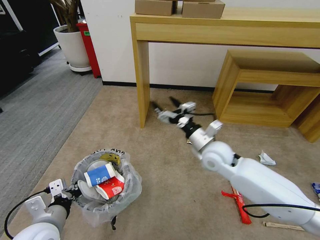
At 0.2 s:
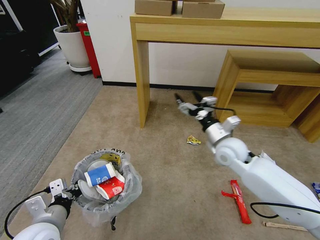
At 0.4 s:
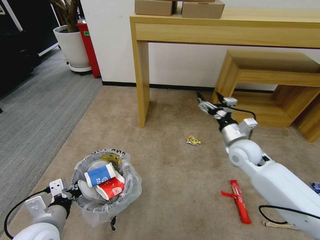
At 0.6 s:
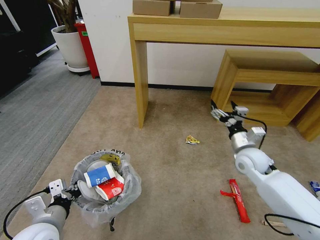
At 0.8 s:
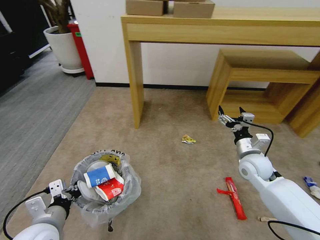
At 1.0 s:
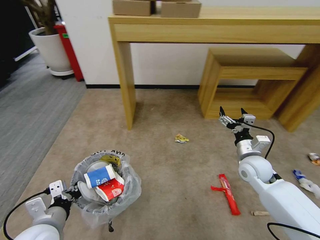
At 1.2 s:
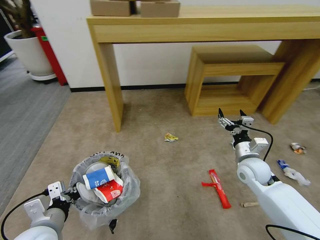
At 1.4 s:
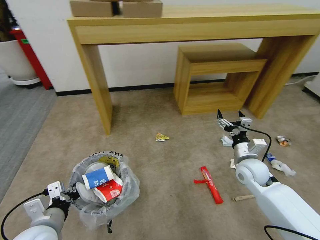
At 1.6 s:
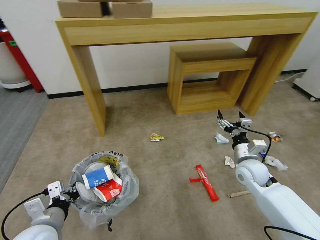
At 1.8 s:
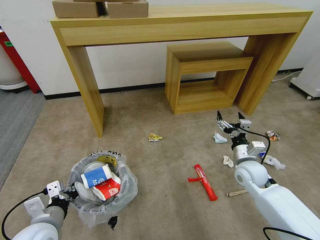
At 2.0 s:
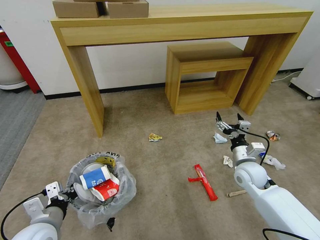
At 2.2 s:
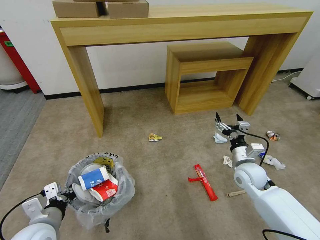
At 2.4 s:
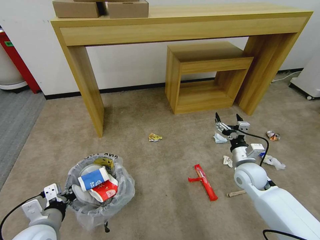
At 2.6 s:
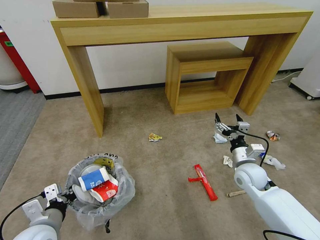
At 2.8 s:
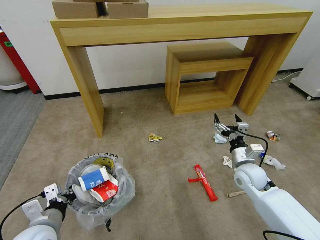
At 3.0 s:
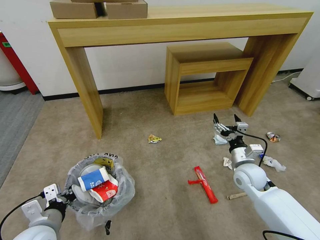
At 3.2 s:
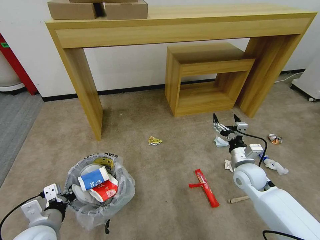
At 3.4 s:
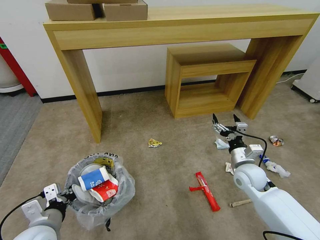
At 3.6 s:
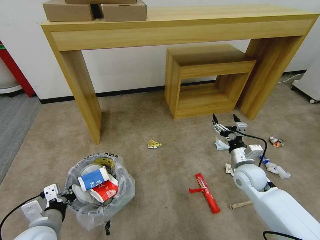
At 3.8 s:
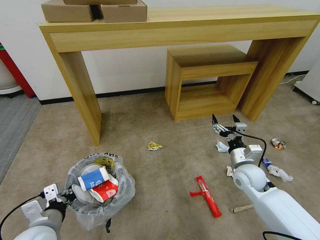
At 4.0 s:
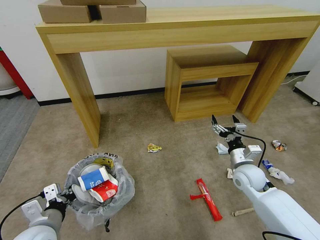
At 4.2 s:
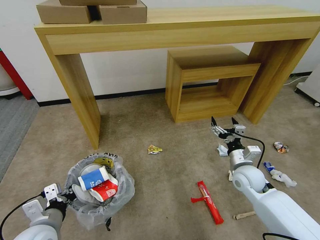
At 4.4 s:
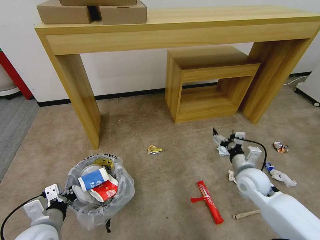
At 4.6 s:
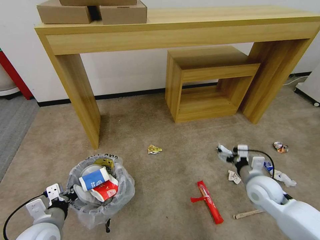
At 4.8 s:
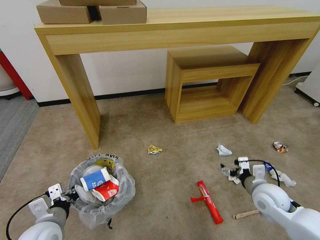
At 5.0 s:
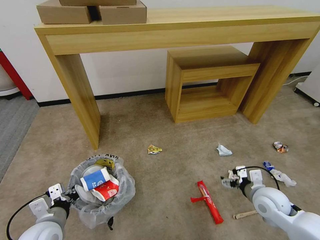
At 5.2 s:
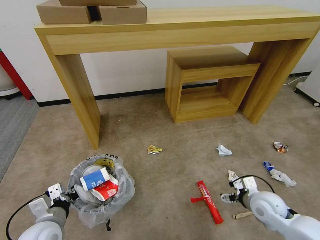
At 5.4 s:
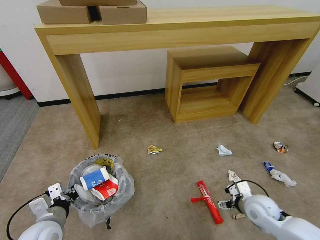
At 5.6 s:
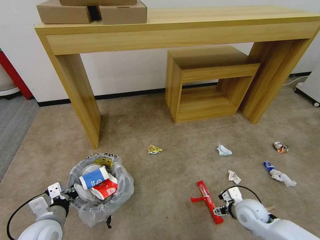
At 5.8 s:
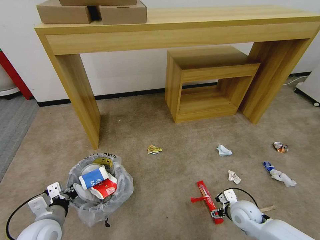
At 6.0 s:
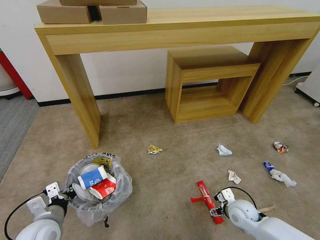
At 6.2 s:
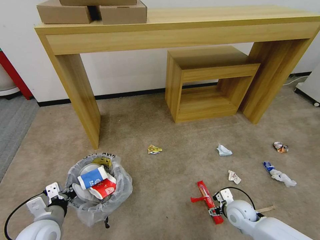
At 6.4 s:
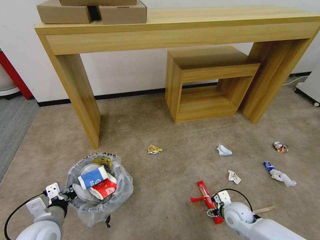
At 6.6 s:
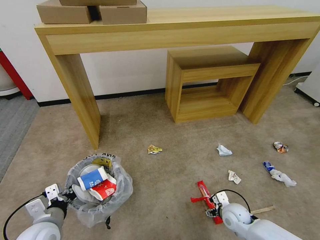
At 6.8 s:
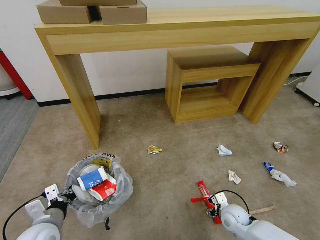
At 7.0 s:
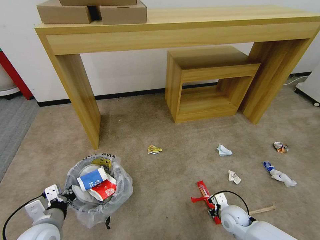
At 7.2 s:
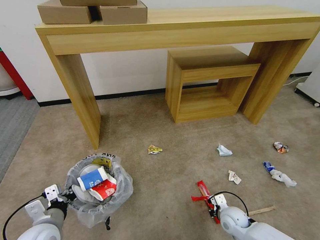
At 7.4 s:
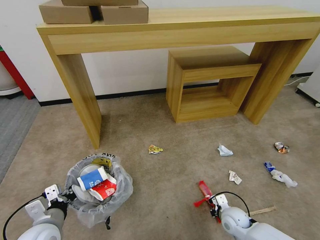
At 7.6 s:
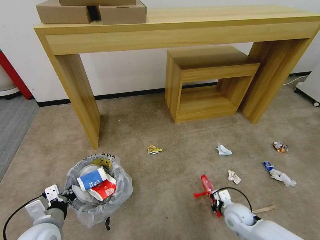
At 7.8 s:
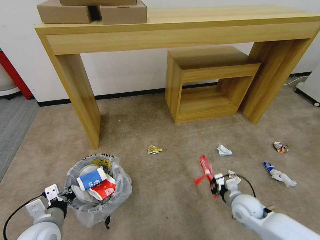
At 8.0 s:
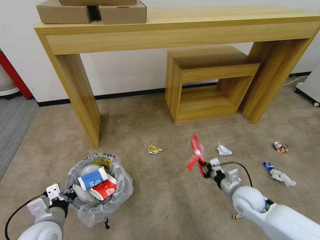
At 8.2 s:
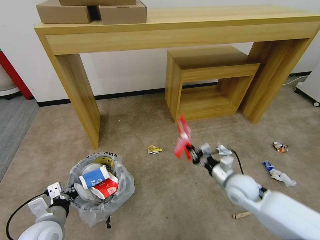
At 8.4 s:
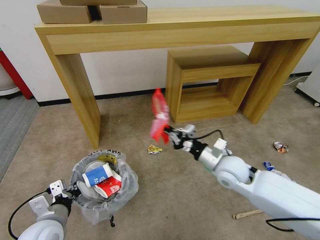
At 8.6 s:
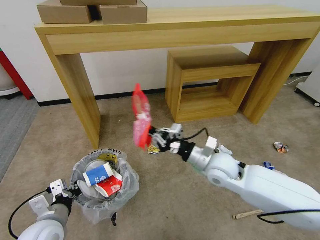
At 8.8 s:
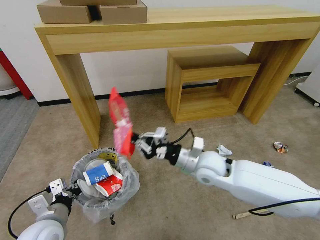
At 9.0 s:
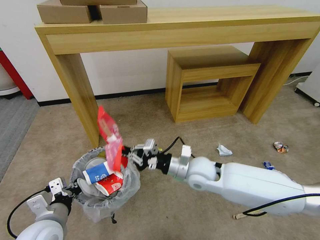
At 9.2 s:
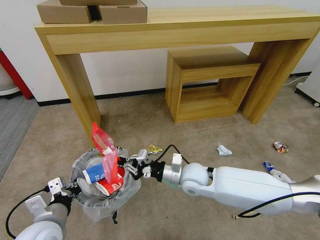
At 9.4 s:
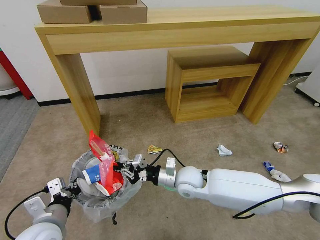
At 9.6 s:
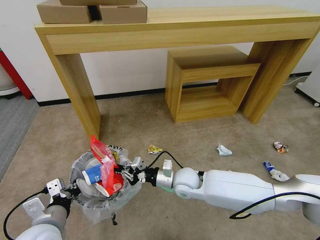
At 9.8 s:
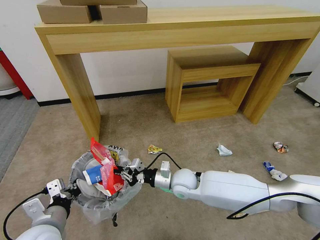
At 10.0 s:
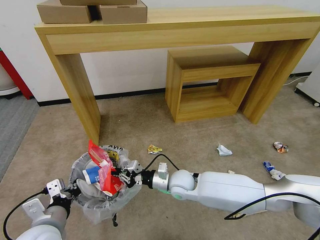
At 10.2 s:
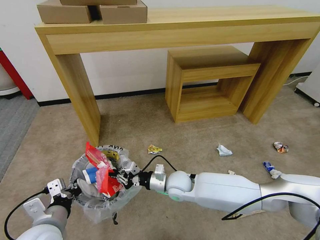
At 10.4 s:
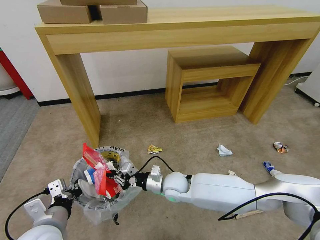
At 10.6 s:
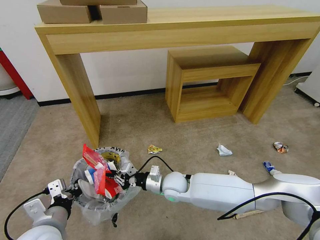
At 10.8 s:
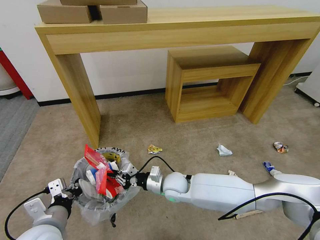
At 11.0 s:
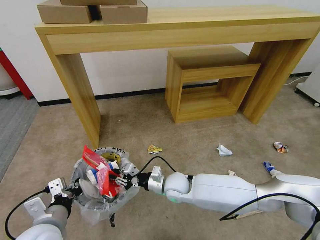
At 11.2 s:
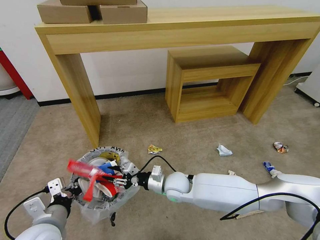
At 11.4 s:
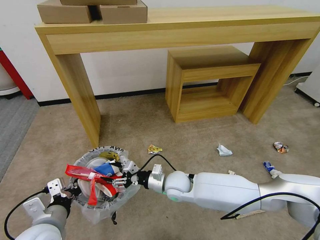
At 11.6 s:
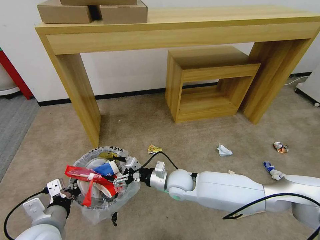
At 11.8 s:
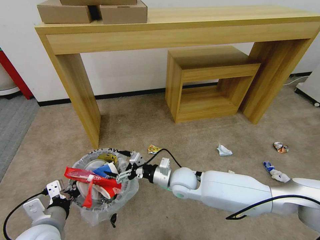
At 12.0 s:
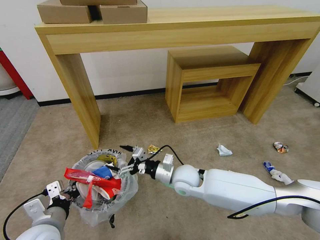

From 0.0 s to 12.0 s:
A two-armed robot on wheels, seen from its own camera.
Task of the whole recording: Pick up the trash bin and place the garbage on the floor into it.
From 0.0 s to 1.6 s: The right gripper shifts some 15 cm to the right and downward.
From 1.6 s to 3.0 s: There are only small adjustments of the grippers.
From 4.4 s to 6.0 s: The right gripper moves downward and backward, roughly 15 cm.
From 6.0 s to 7.6 s: The right gripper closes up.
From 7.6 s to 9.0 s: The right gripper is displaced upward and to the left by about 25 cm.
From 9.0 s to 10.4 s: The right gripper shifts about 15 cm downward and to the left.
From 10.4 s to 12.0 s: The right gripper ends up approximately 5 cm from where it was, and opens its fingers.

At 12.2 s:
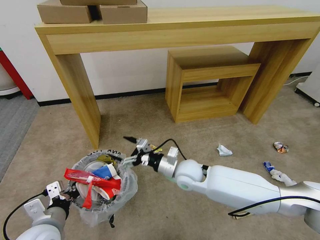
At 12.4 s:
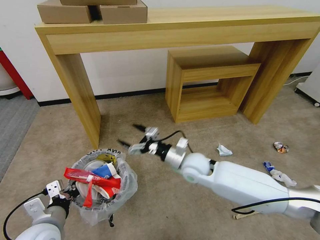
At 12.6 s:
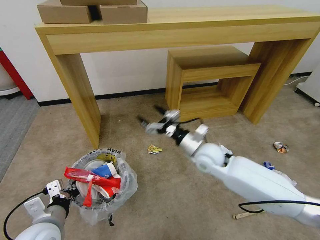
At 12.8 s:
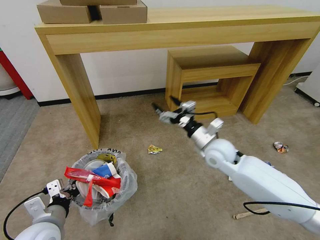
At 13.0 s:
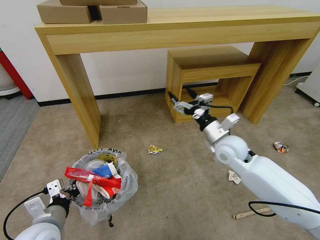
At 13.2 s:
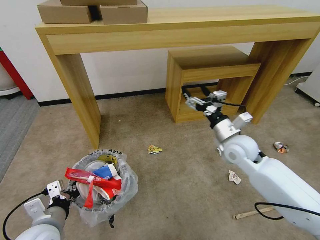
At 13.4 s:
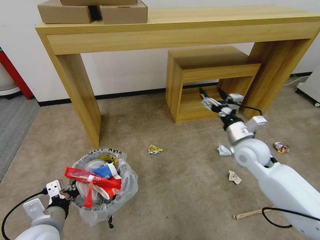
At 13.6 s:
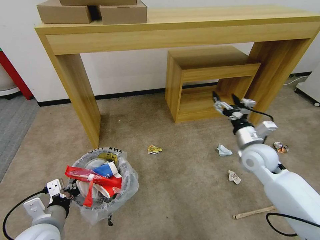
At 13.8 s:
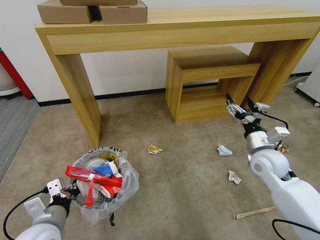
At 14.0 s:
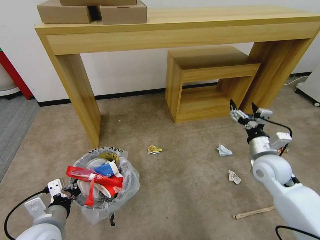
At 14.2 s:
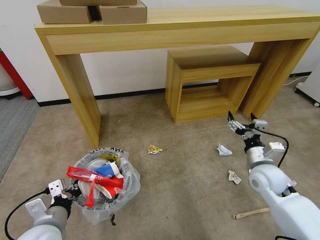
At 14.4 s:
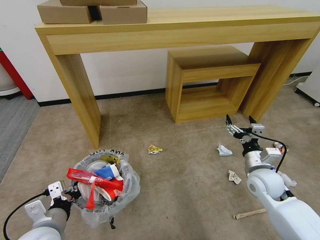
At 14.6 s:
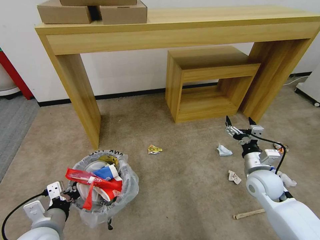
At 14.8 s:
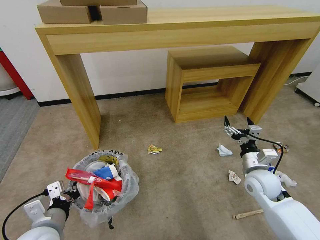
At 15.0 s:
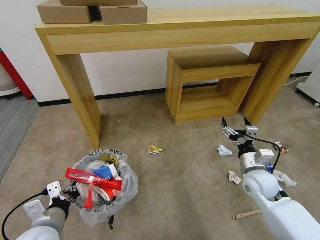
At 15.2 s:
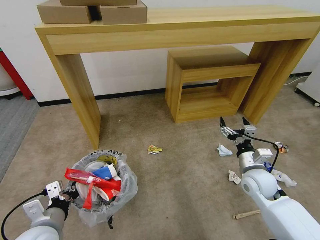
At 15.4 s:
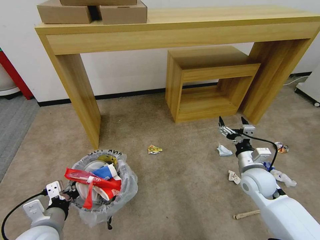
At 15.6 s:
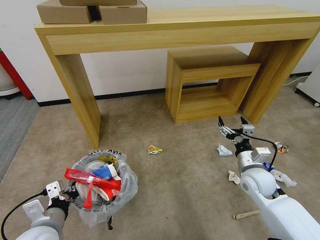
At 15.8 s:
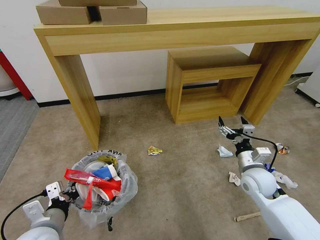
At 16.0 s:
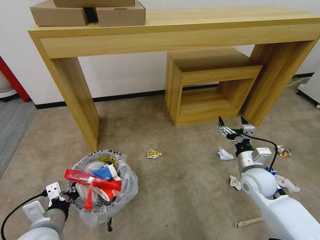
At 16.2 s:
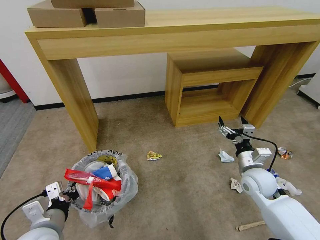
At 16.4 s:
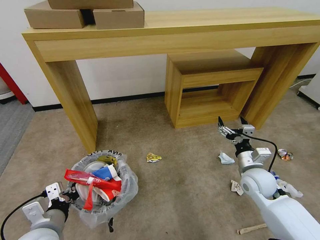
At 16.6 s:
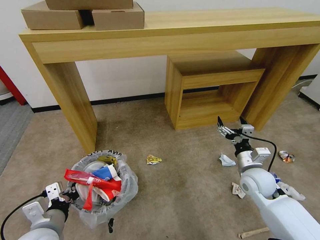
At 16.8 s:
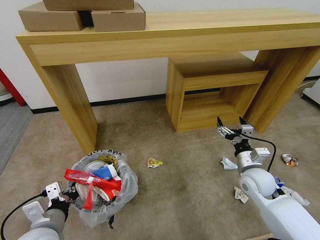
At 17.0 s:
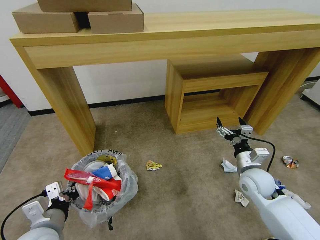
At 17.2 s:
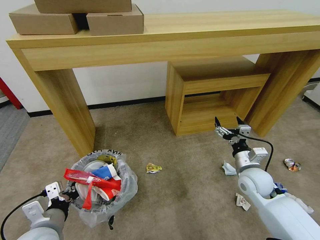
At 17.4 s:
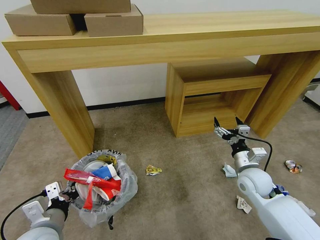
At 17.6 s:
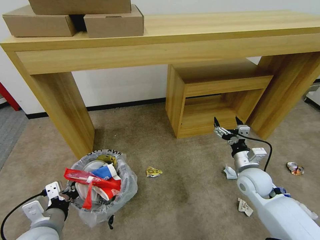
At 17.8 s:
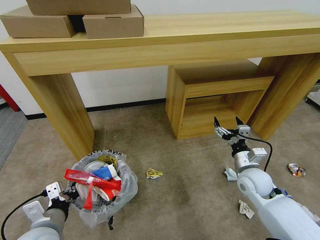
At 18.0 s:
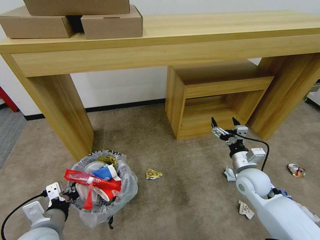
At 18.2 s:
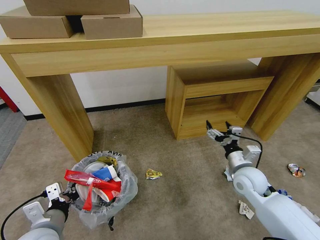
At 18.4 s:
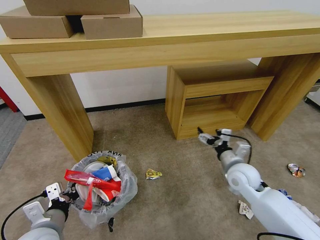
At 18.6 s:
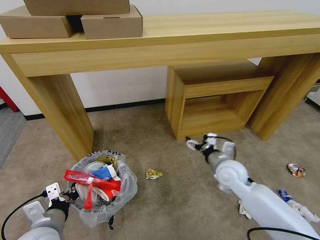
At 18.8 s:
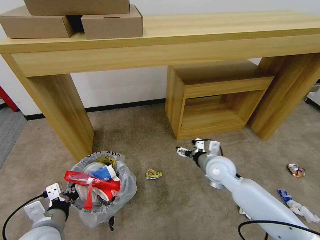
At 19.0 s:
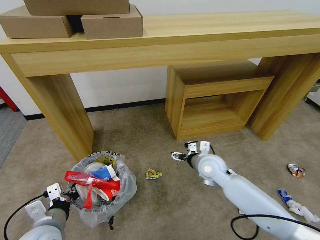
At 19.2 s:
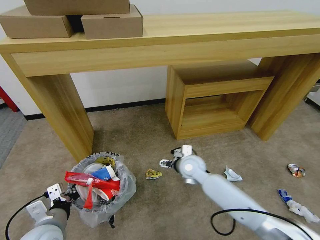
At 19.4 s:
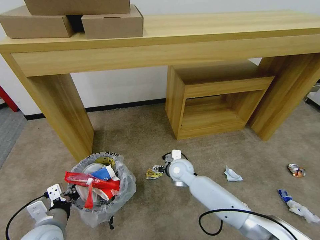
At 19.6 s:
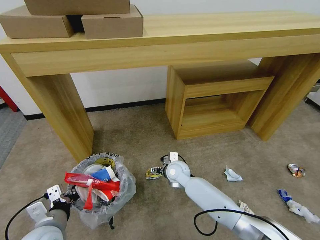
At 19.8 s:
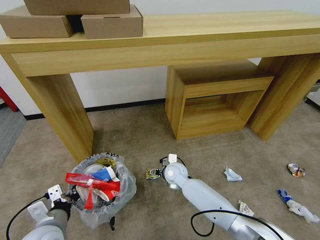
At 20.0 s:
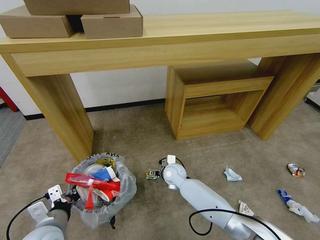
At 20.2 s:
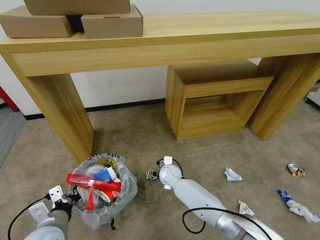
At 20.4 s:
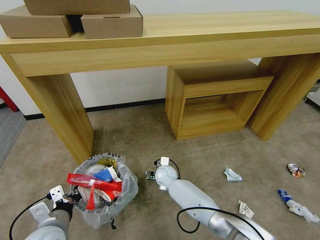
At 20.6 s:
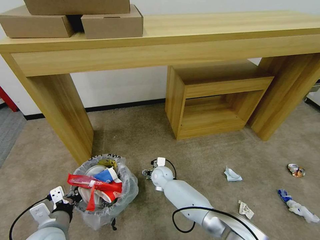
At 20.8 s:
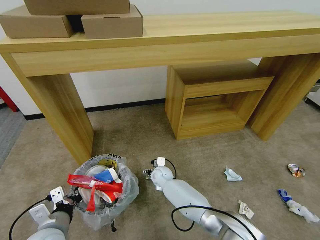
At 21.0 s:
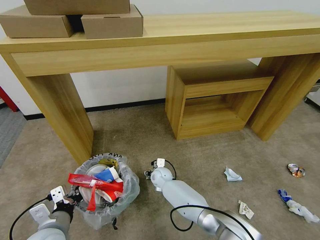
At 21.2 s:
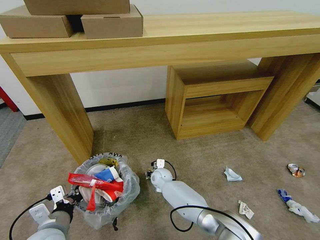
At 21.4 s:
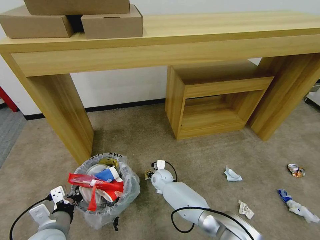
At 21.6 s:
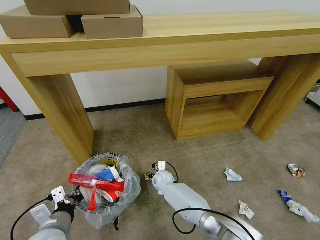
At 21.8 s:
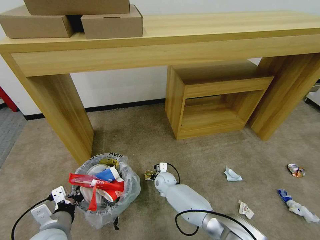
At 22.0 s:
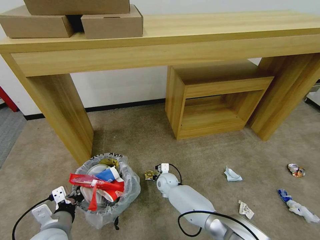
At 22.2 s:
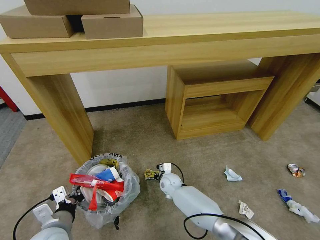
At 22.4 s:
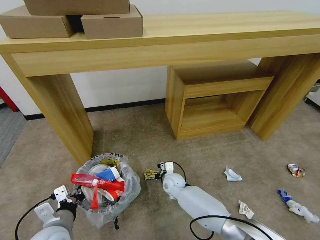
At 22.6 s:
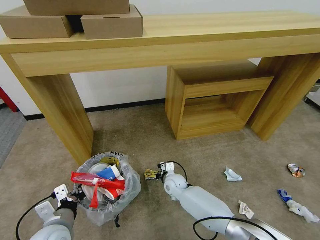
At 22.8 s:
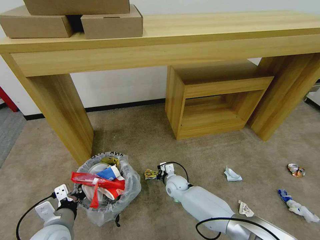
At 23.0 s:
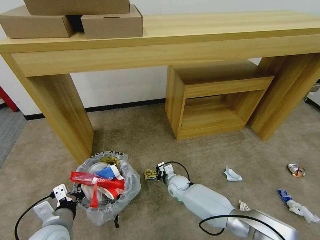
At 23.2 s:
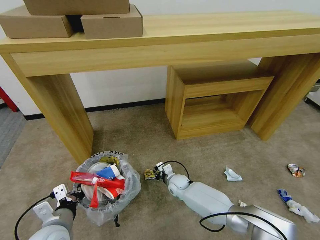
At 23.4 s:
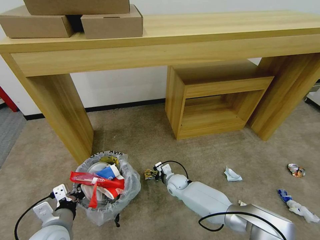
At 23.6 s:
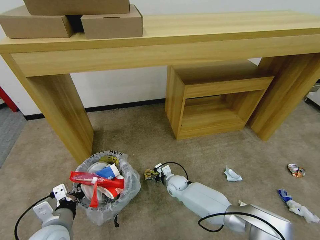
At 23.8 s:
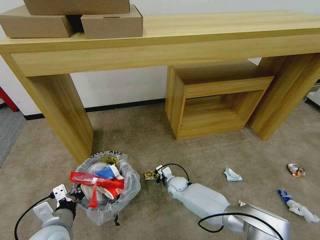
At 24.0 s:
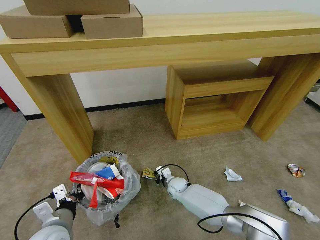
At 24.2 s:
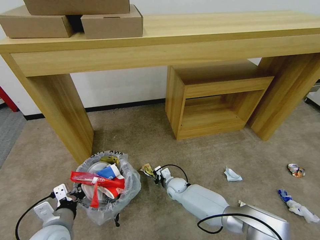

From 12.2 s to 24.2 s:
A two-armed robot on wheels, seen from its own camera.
Task of the whole recording: Pick up the trash bin and place the garbage on the floor into it.
From 12.2 s to 13.8 s: The right gripper shifts approximately 25 cm to the right.
From 13.8 s to 15.2 s: The right gripper moves downward, approximately 5 cm.
From 18.2 s to 19.8 s: The right gripper shifts some 25 cm to the left and downward.
From 19.8 s to 21.2 s: The right gripper heads downward and to the left, covering approximately 10 cm, and closes.
From 21.2 s to 22.6 s: The right gripper travels to the right by roughly 5 cm, and closes up.
From 22.6 s to 24.2 s: The right gripper heads downward, covering about 5 cm, and opens, then closes once more.
